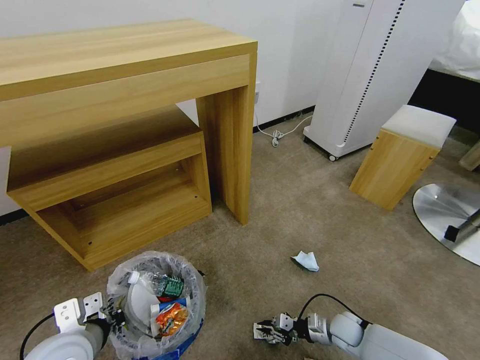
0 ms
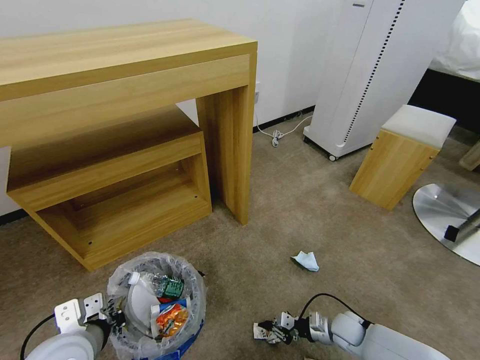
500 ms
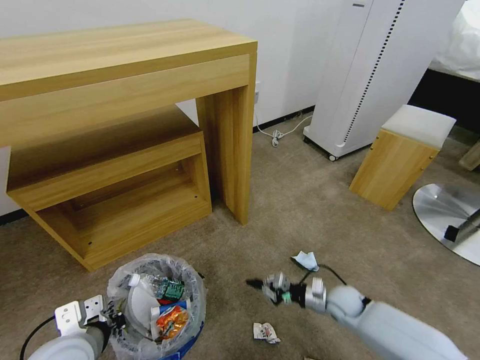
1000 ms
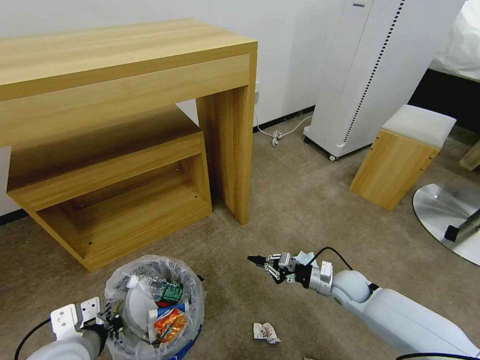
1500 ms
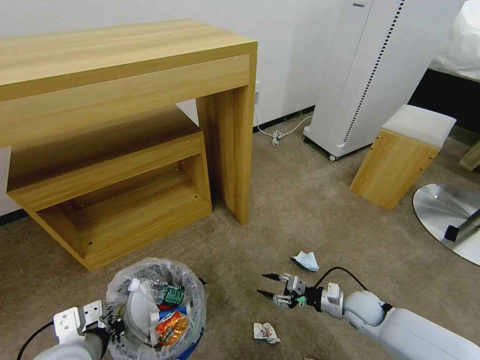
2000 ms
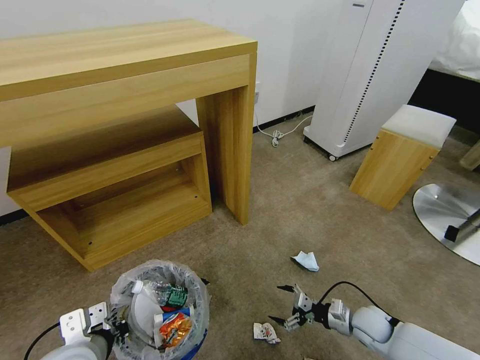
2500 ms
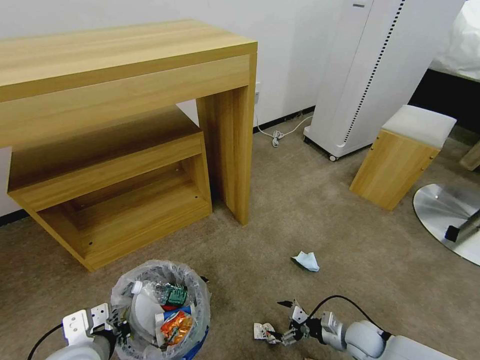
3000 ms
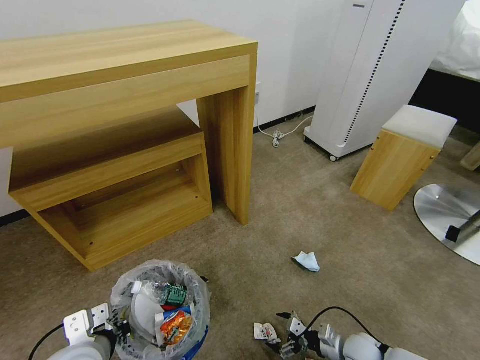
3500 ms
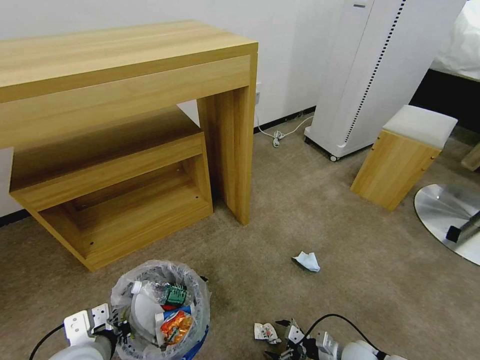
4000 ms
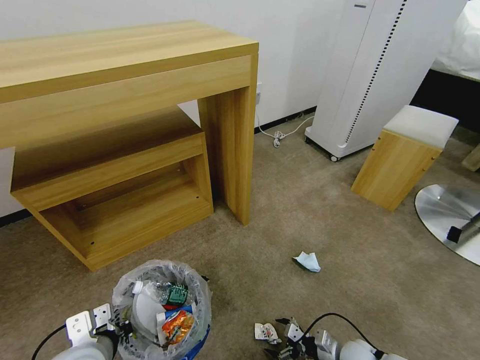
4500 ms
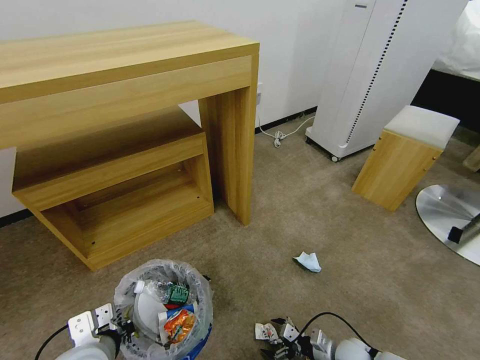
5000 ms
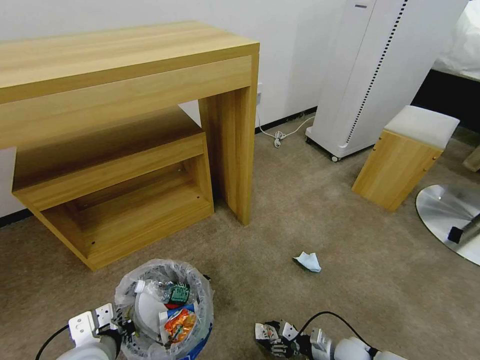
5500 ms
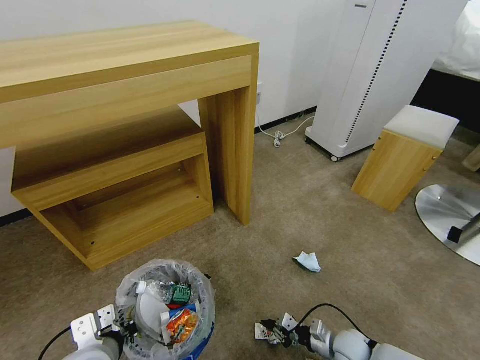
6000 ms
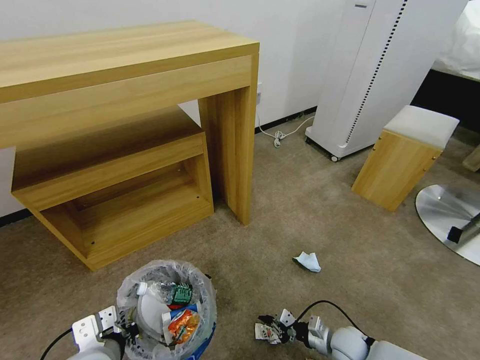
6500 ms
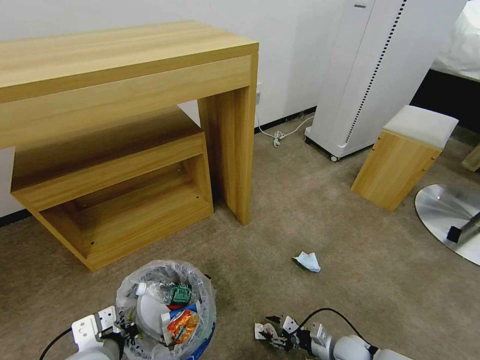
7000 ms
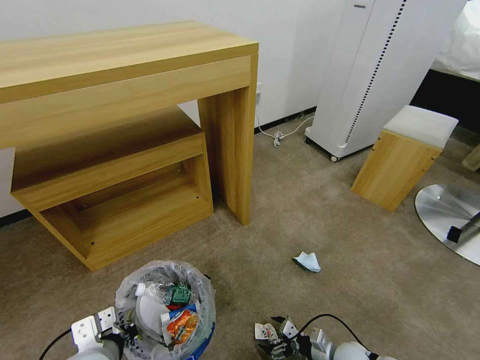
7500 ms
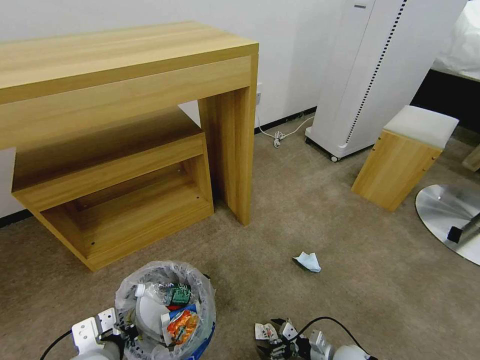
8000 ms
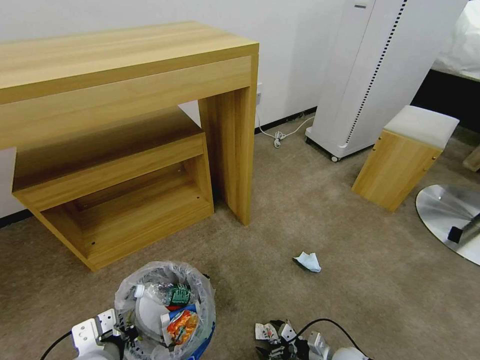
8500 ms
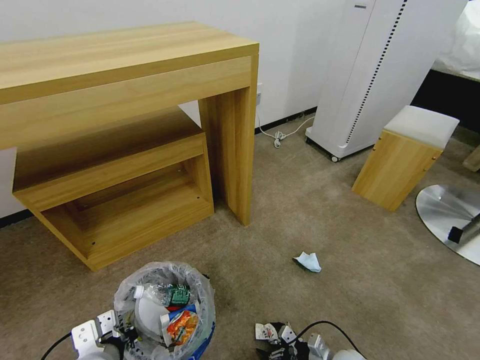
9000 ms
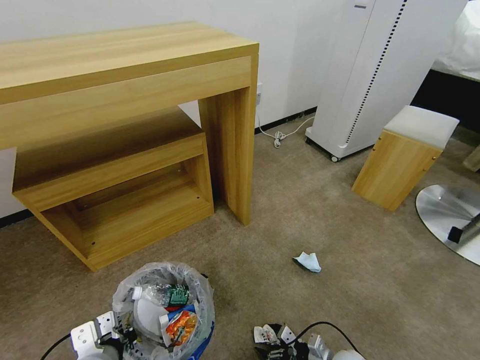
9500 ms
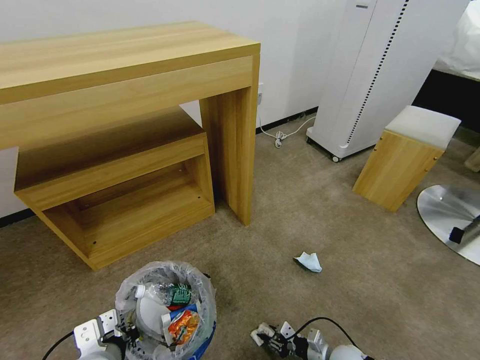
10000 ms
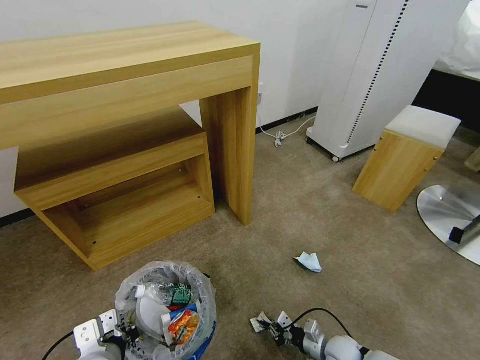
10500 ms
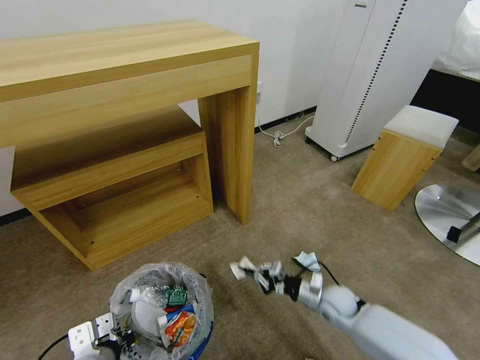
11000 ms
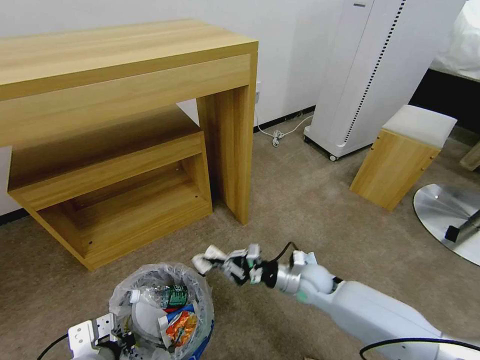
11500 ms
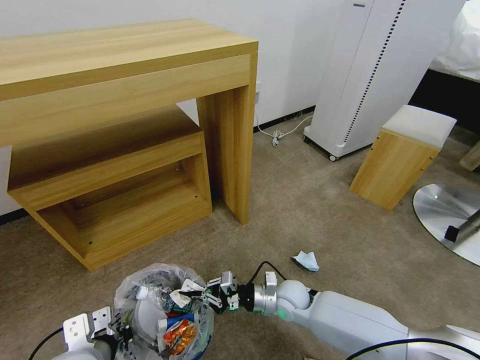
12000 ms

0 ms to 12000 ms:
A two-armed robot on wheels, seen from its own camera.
Task of the whole recording: Pick up the trash bin and place the garbage on the floor into it.
0 ms to 2000 ms: The right gripper is displaced upward by roughly 10 cm, and opens up.
2000 ms to 4000 ms: The right gripper goes some 15 cm backward and downward, and opens its fingers.
4000 ms to 6000 ms: The right gripper closes up.
6000 ms to 8000 ms: The right gripper opens.
8000 ms to 10000 ms: The right gripper closes up.
10000 ms to 12000 ms: The right gripper travels to the left, upward and forward by about 25 cm.

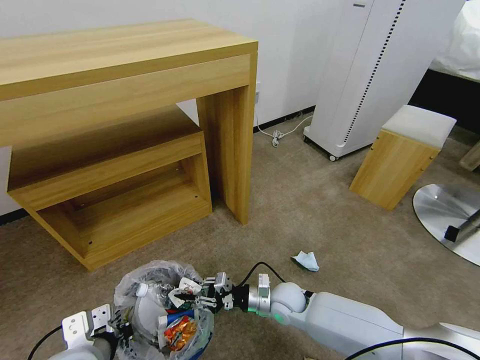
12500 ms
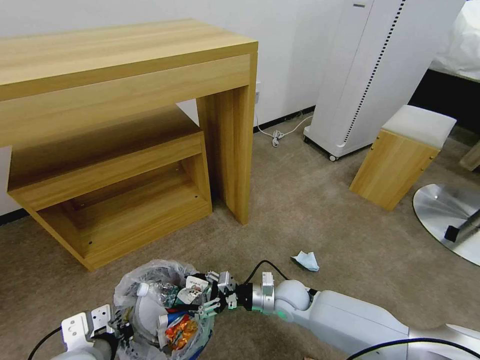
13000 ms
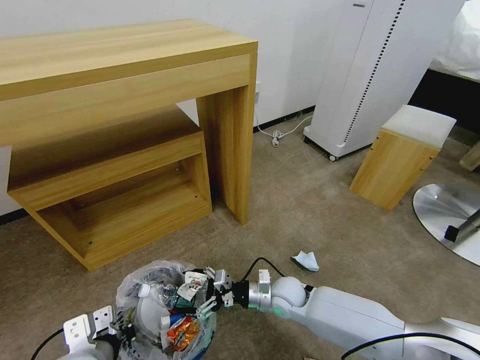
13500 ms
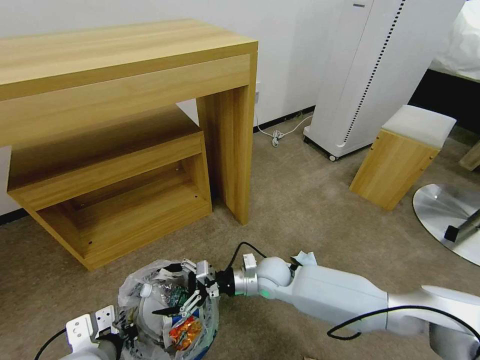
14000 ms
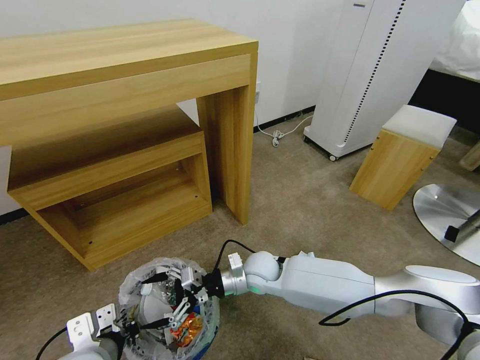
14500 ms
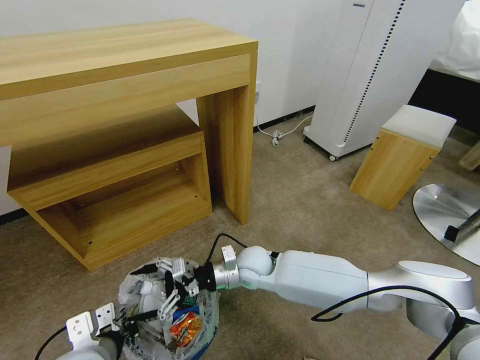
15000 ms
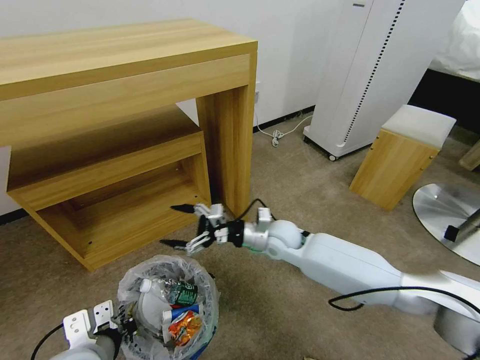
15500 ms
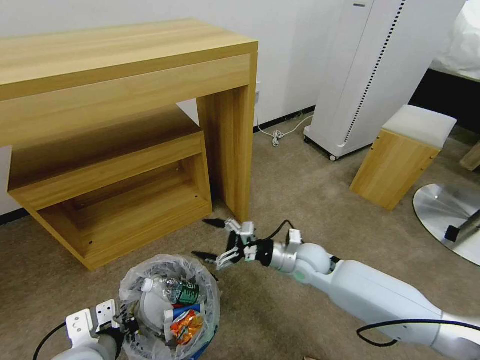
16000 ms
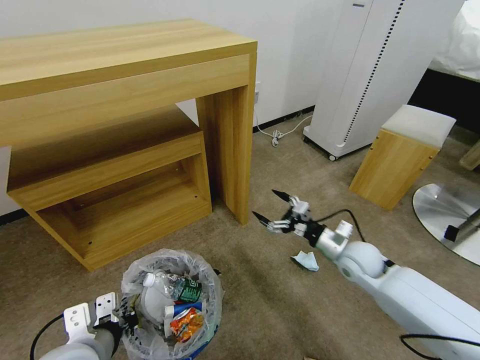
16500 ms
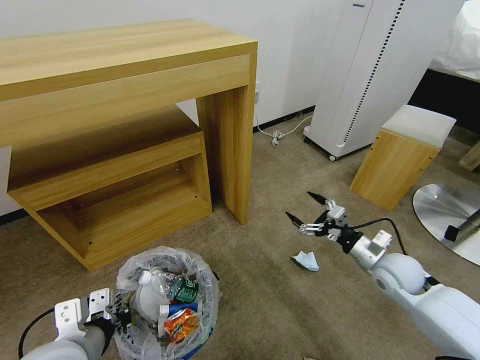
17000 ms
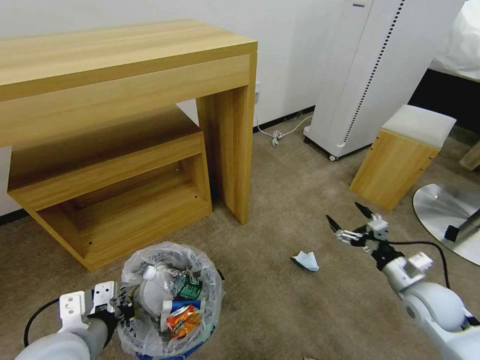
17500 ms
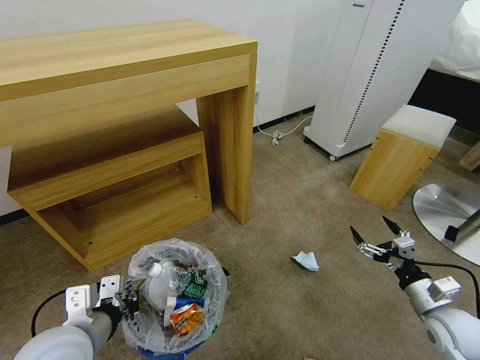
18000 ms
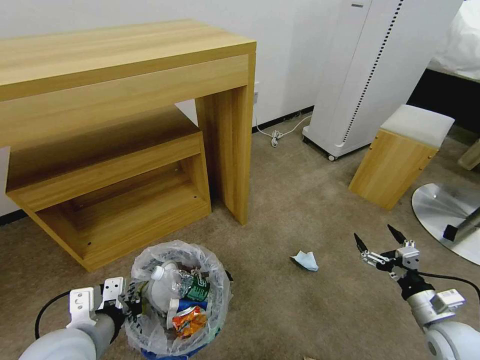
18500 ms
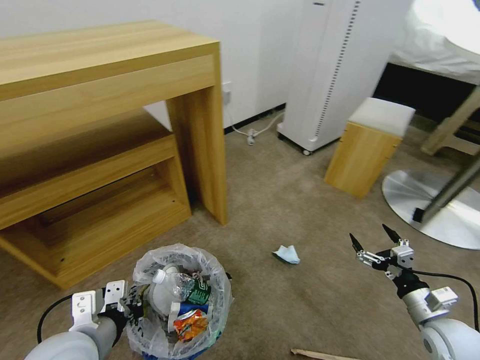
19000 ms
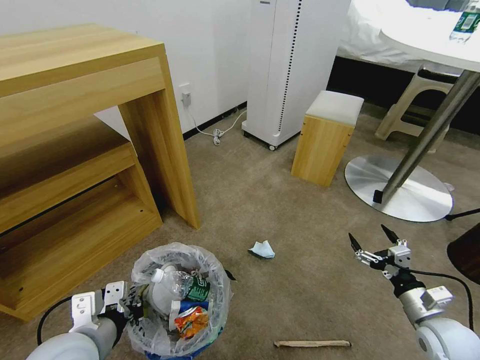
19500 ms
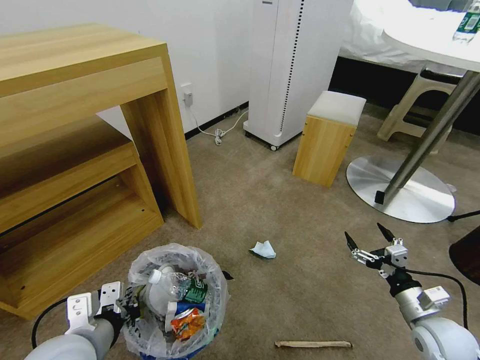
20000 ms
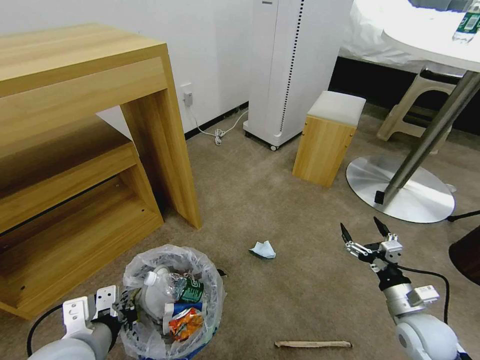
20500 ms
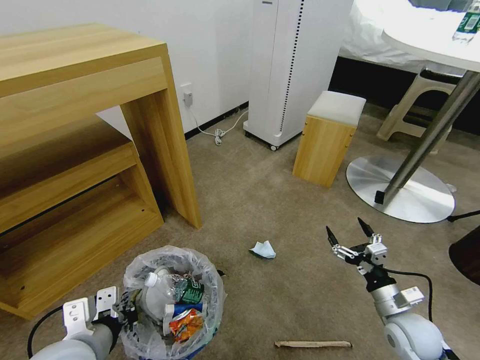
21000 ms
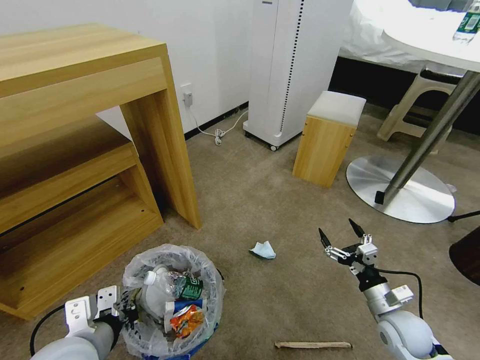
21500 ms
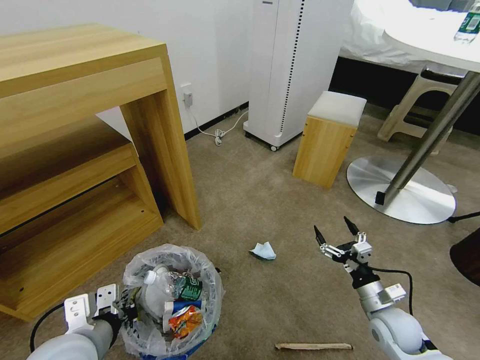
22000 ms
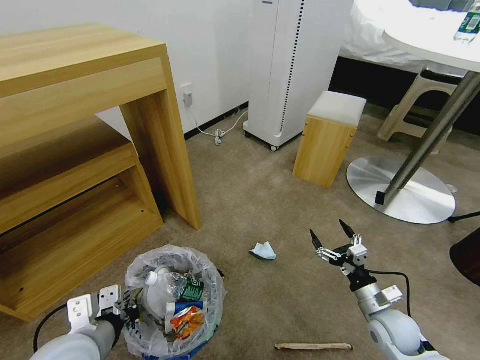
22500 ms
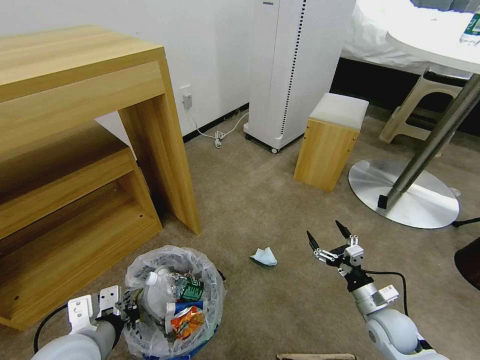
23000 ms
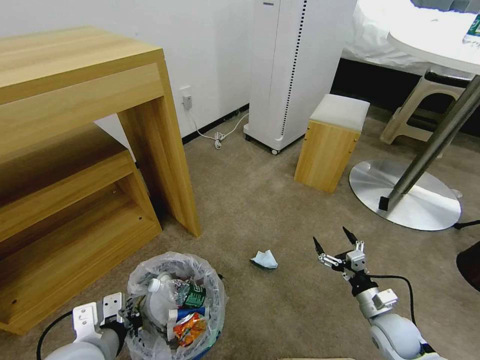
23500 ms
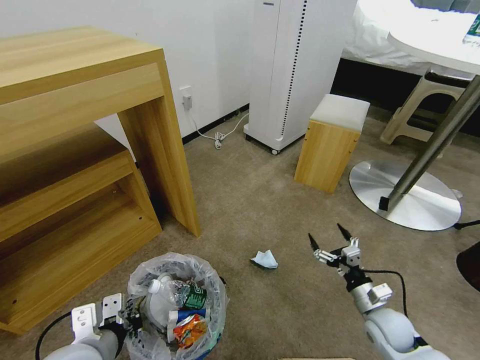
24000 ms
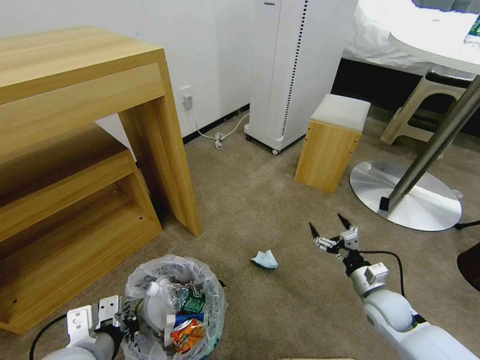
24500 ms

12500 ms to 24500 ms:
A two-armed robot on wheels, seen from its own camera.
Task of the whole recording: Pick up the trash bin and place the garbage on the floor into it.
12500 ms to 14500 ms: The right gripper heads upward and to the left, covering approximately 10 cm, and opens up.
14500 ms to 16500 ms: The right gripper heads to the right, covering roughly 25 cm.
16500 ms to 18500 ms: The right gripper heads backward and to the right, covering roughly 20 cm.
18500 ms to 20500 ms: The right gripper changes place by approximately 5 cm.
20500 ms to 22500 ms: The right gripper ends up approximately 5 cm from where it was.

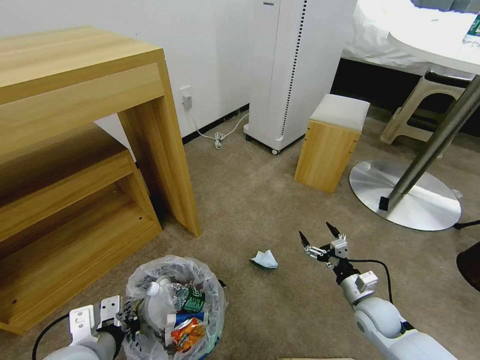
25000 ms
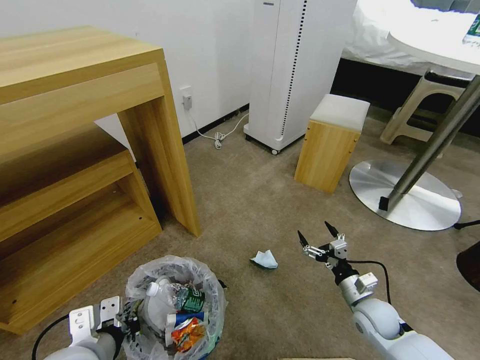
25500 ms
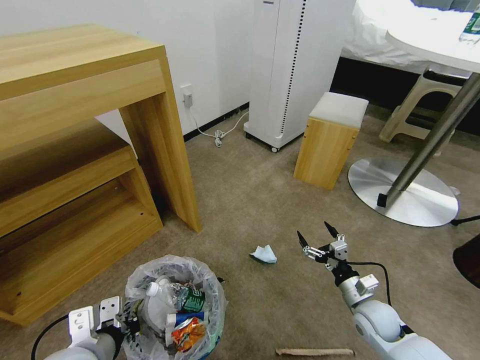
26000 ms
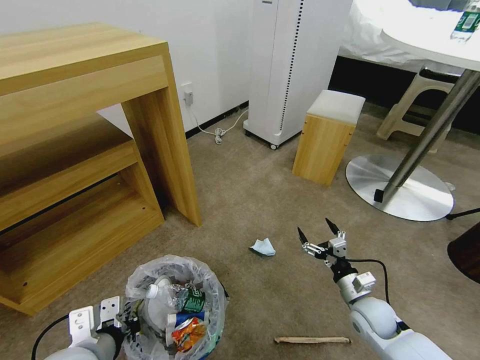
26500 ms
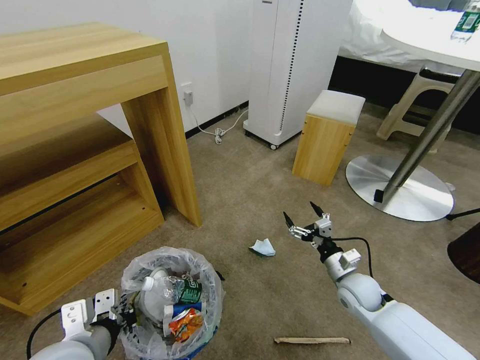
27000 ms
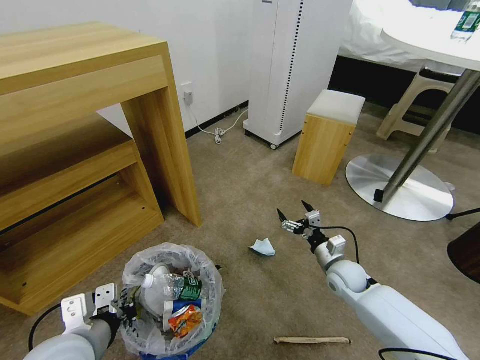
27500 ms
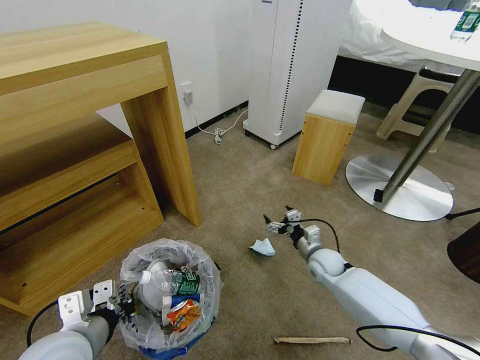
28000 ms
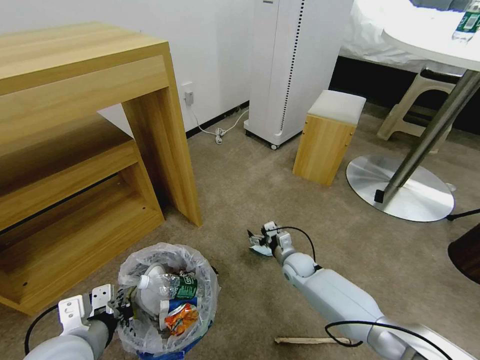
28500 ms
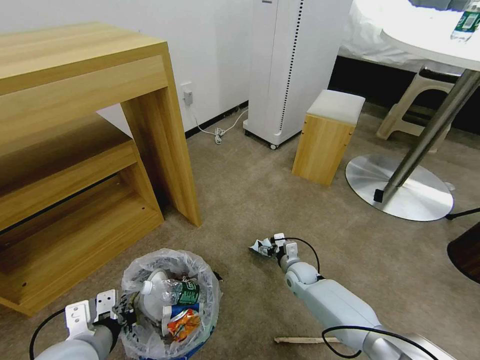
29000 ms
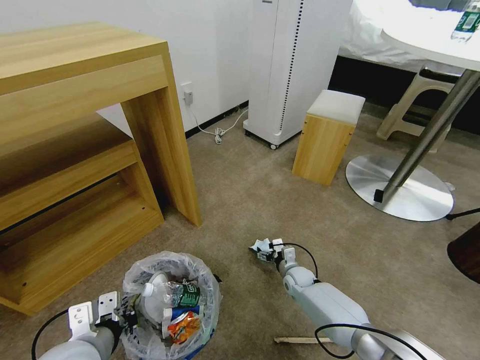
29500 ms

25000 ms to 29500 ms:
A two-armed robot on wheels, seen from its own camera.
Task of the whole recording: Pick up the trash bin and place the garbage on the floor into it.
25000 ms to 27000 ms: The right gripper shifts about 5 cm forward.
27000 ms to 29500 ms: The right gripper goes some 20 cm downward, to the left and forward.
